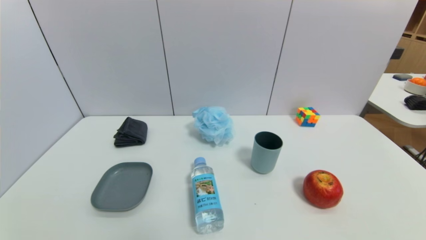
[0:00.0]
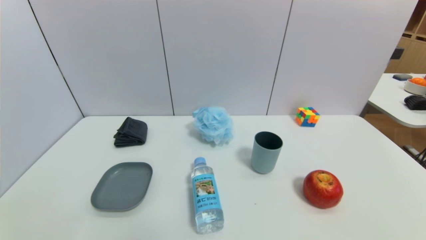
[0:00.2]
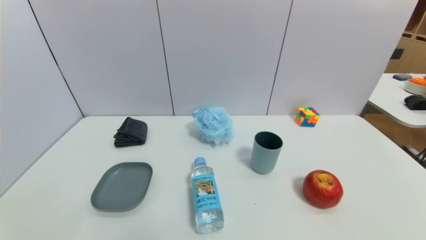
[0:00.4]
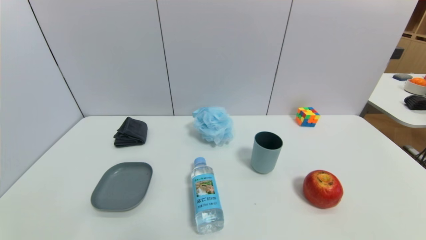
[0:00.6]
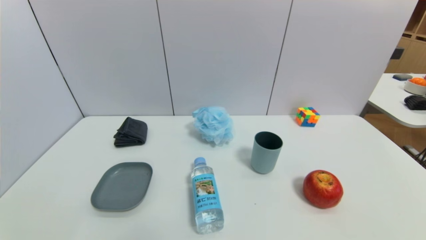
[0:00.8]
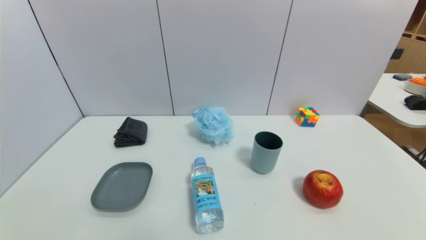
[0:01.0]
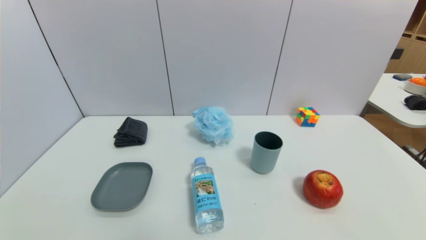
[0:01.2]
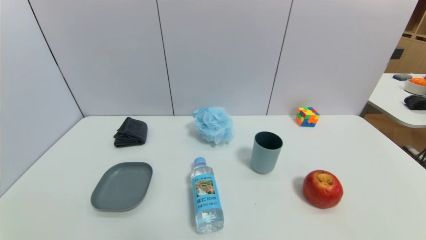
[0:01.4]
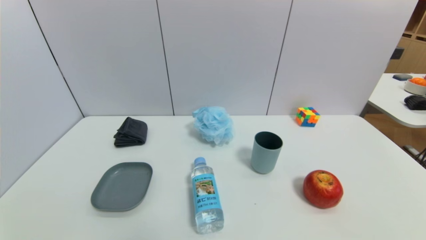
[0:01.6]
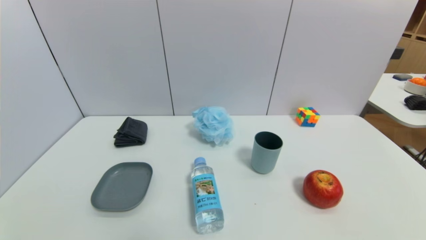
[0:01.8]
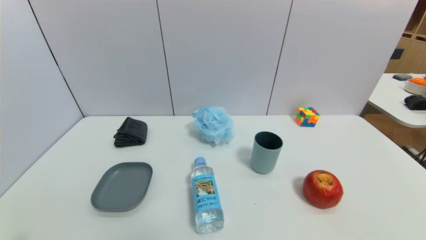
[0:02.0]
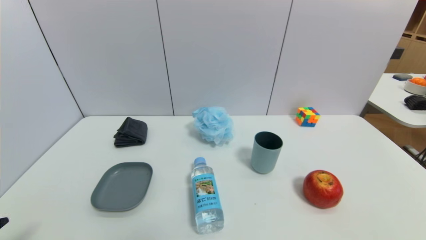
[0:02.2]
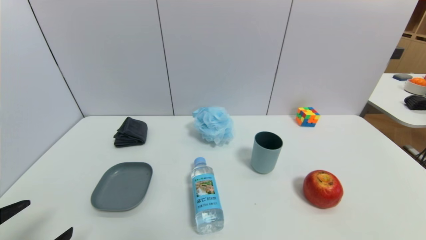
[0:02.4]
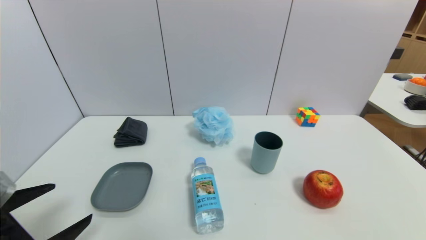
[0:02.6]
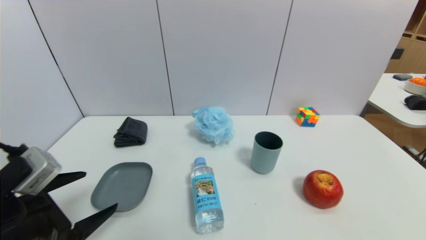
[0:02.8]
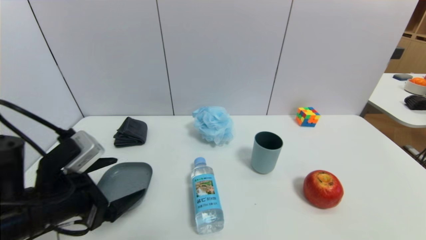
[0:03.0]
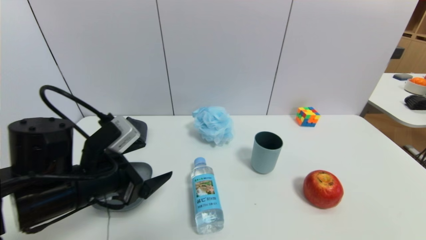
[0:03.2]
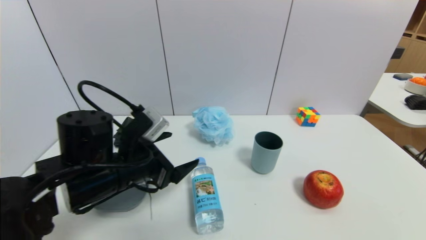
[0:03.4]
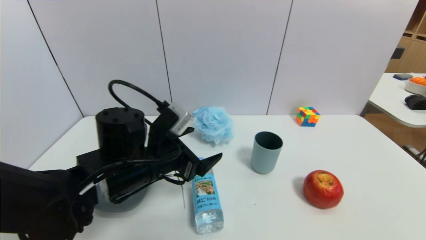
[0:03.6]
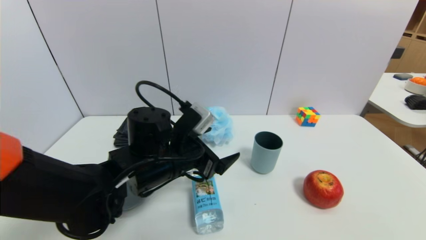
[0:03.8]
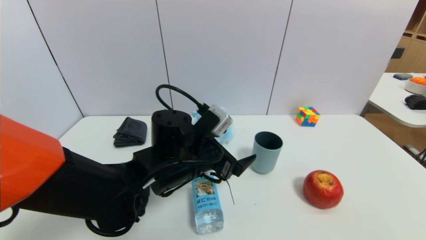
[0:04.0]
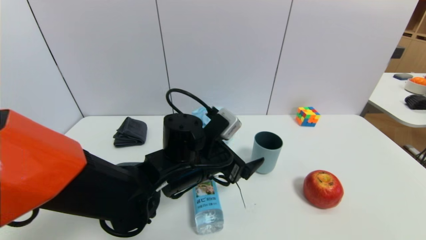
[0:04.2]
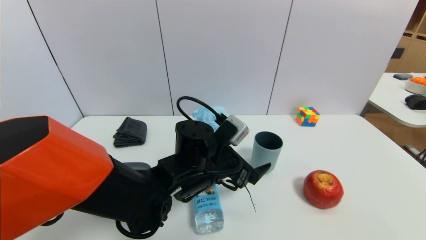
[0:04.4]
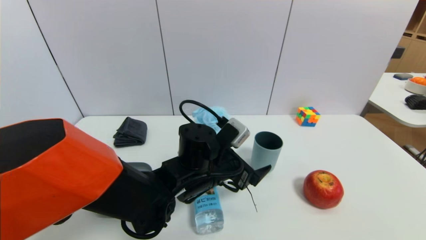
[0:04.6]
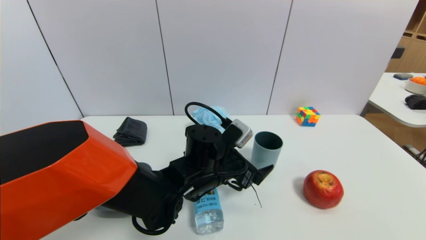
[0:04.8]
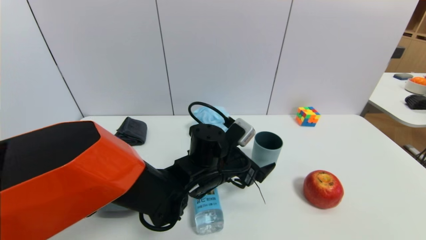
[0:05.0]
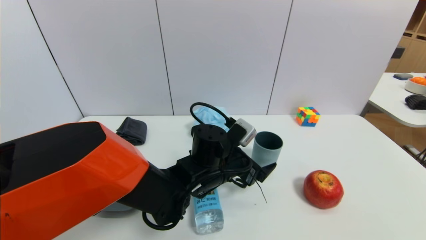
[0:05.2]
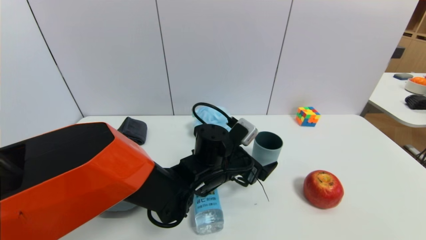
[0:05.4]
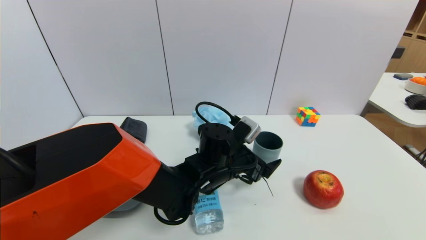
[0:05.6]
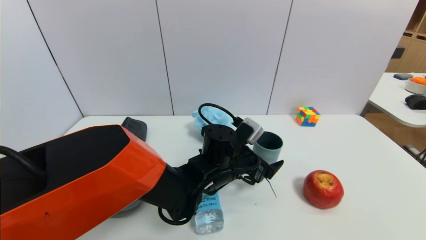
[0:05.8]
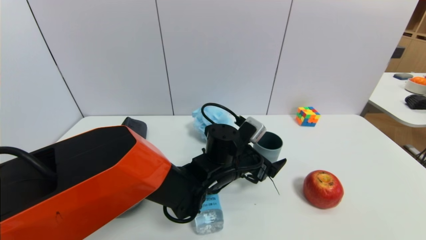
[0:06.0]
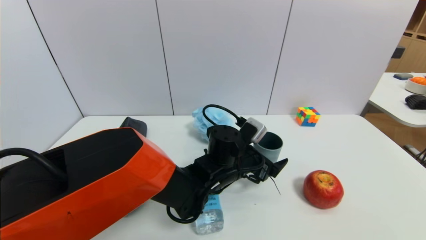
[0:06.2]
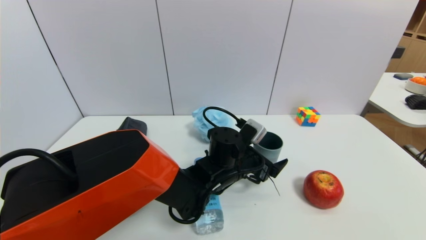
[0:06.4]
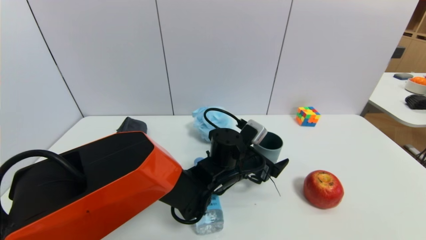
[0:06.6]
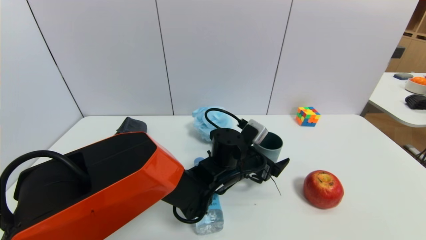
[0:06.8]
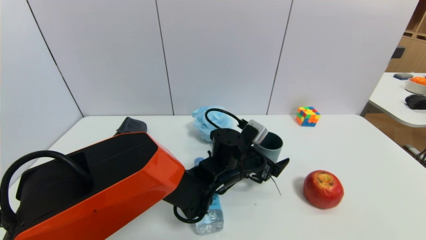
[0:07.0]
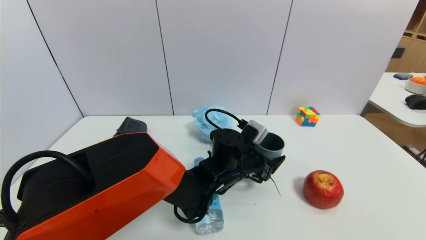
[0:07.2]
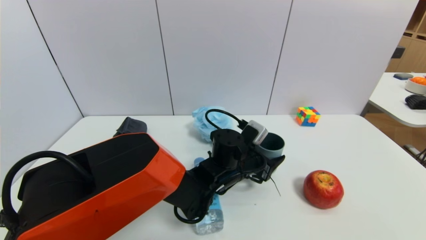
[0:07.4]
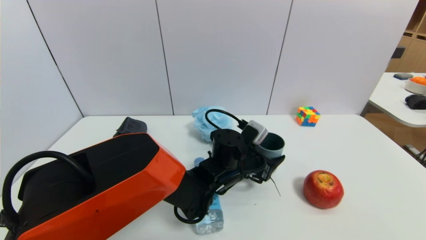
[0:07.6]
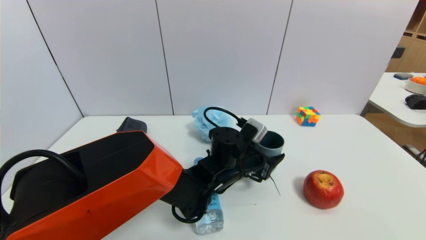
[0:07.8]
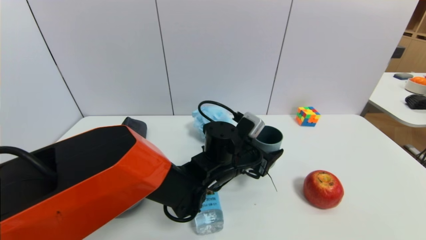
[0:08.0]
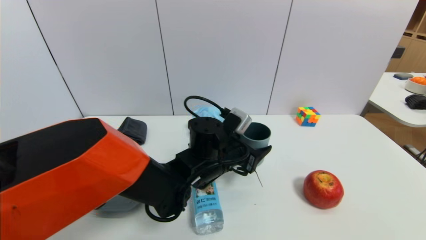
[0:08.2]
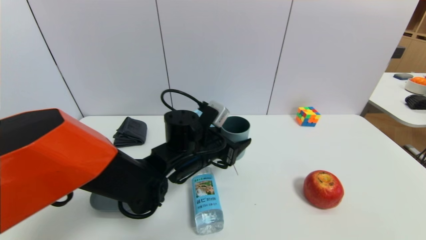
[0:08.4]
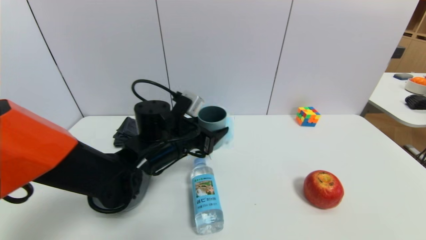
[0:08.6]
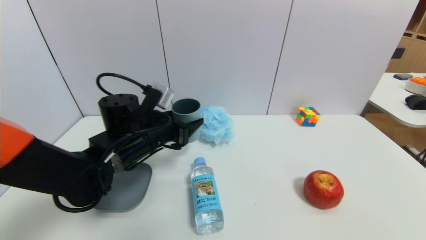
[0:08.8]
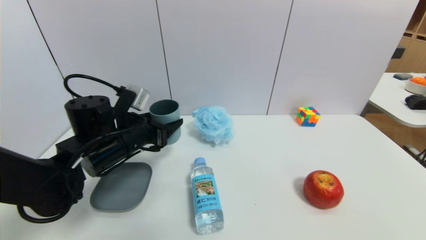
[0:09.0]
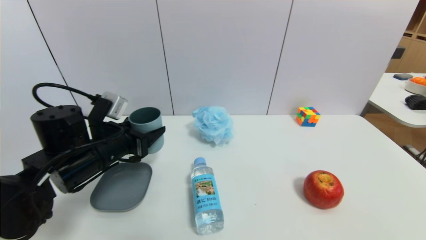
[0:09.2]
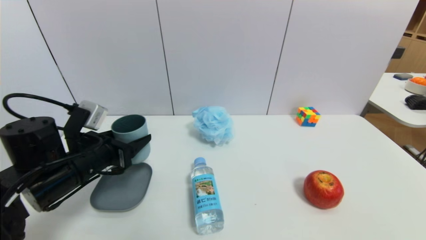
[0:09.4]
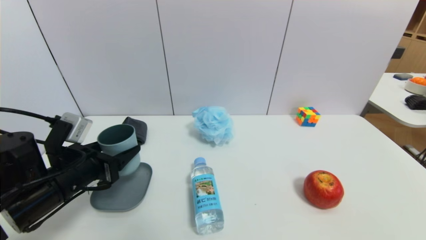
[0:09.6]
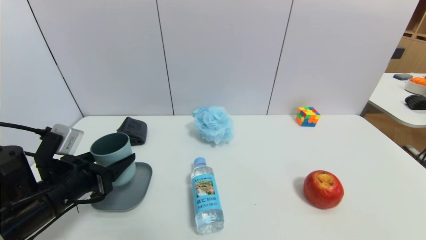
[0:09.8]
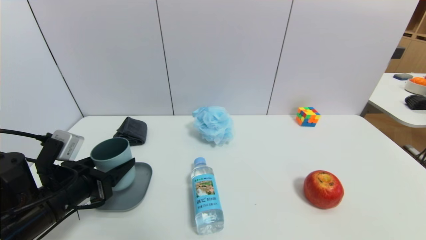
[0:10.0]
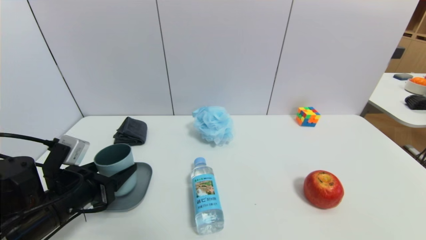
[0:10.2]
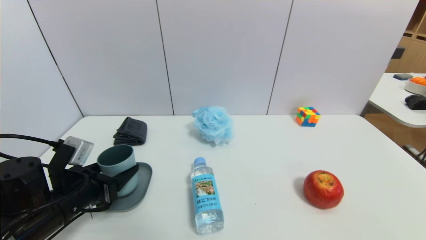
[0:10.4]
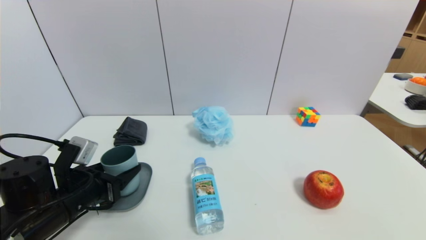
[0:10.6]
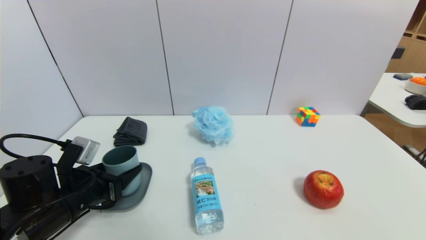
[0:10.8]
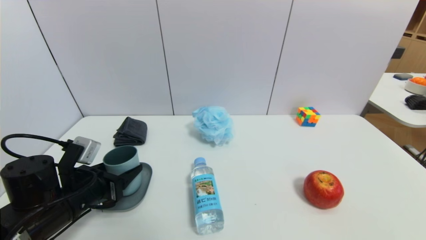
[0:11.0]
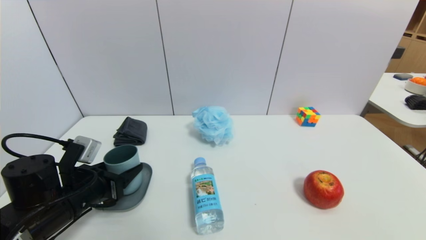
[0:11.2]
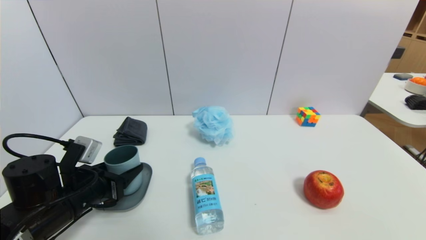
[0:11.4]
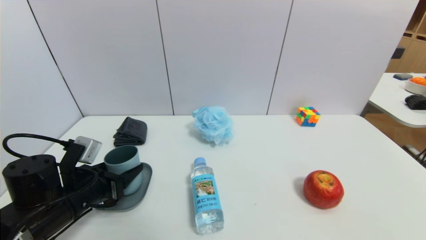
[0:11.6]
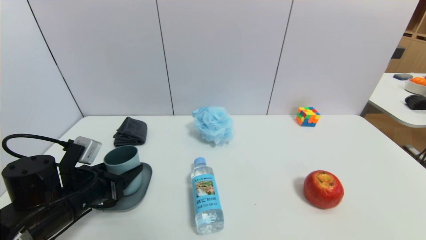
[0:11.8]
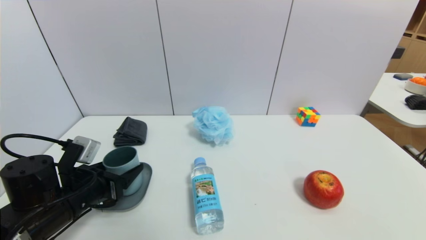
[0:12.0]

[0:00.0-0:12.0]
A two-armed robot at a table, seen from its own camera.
Task of the whole recording: use a gripper to pick the target object and place on the dish.
Step, 0:00.0 to 0:07.4: Grasp the blue cup with the left gripper.
0:00.0 to 0:01.6: Both grippers stay put.
0:01.6 to 0:03.0: The left gripper goes some 20 cm forward and upward.
0:03.0 to 0:04.4: The left gripper goes approximately 25 cm to the right and forward.
0:04.4 to 0:06.0: The left gripper heads to the right, covering approximately 5 cm.
0:06.0 to 0:07.6: The left gripper closes its fingers.
0:07.6 to 0:09.0: The left gripper heads to the left, covering roughly 25 cm.
0:09.0 to 0:10.4: The left gripper is displaced backward, to the left and downward by roughly 10 cm.
0:10.4 to 0:12.0: The left gripper opens.

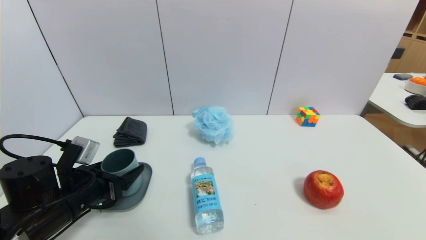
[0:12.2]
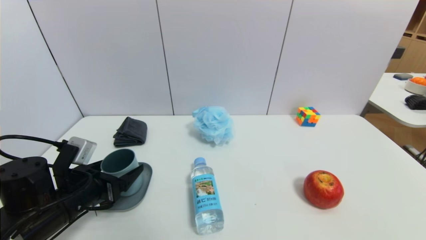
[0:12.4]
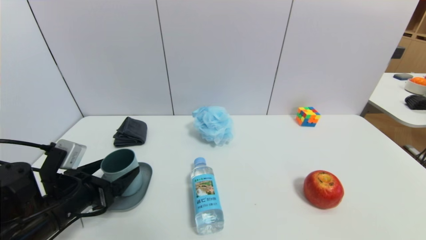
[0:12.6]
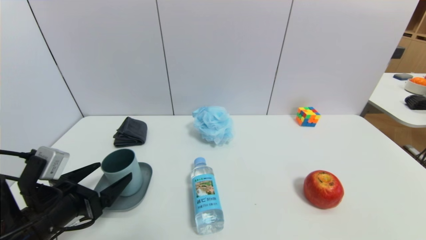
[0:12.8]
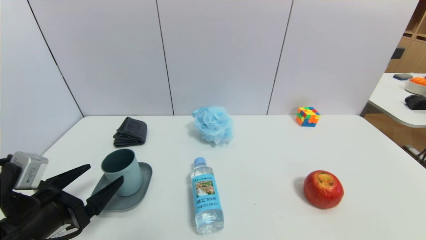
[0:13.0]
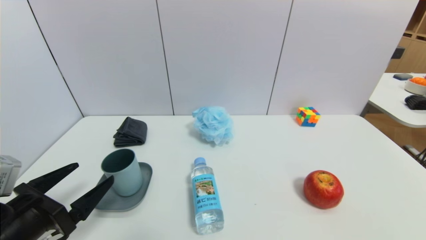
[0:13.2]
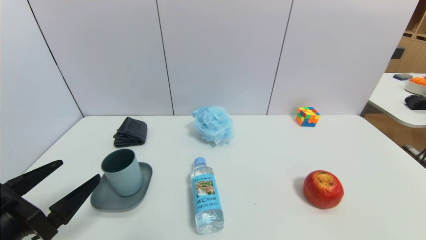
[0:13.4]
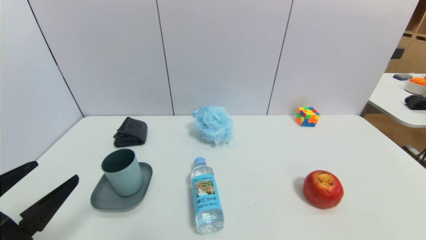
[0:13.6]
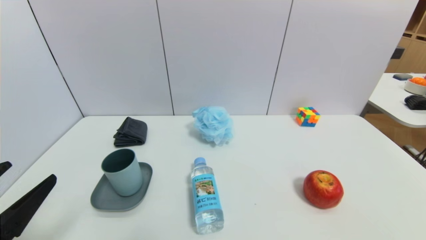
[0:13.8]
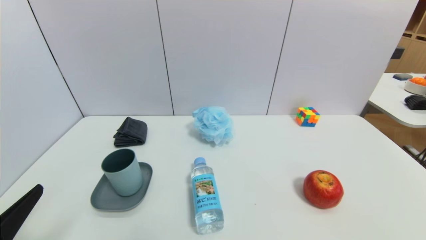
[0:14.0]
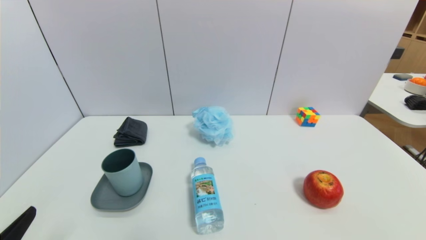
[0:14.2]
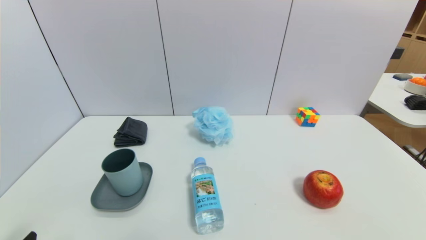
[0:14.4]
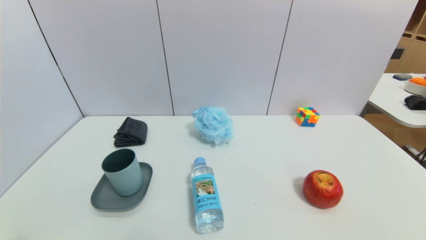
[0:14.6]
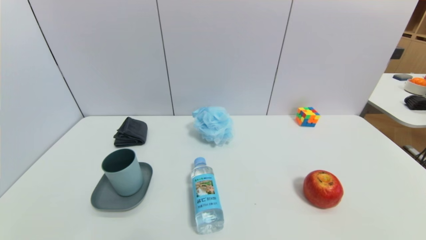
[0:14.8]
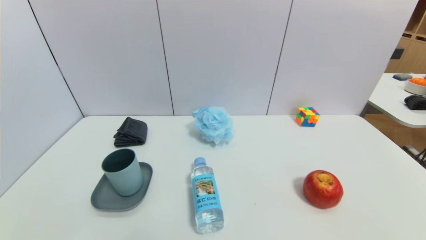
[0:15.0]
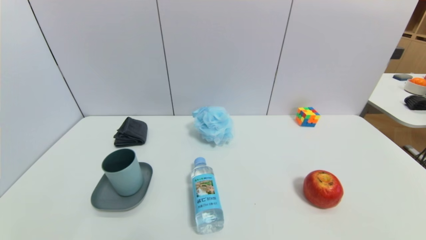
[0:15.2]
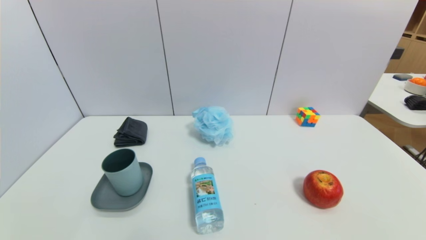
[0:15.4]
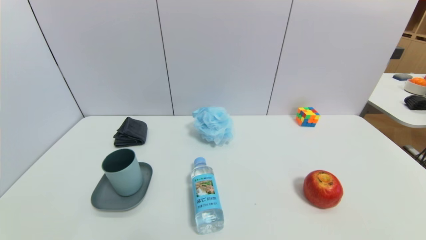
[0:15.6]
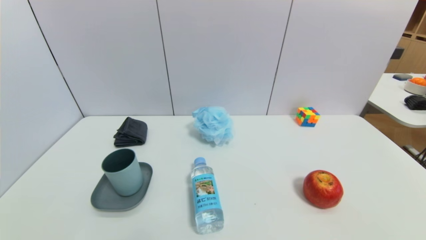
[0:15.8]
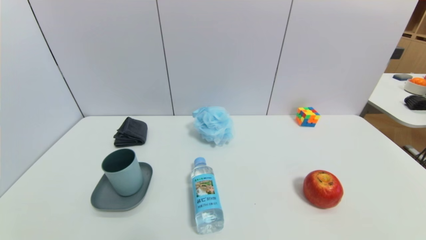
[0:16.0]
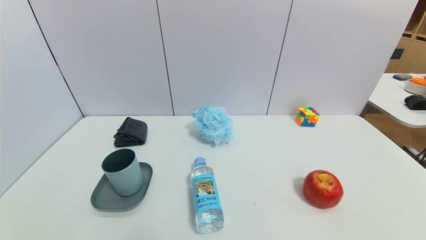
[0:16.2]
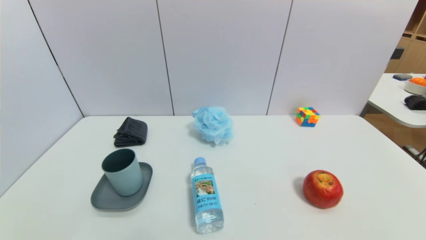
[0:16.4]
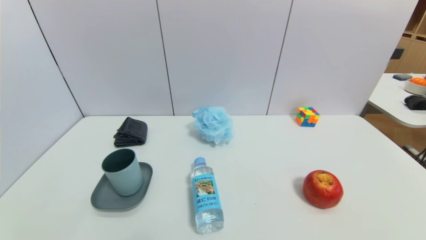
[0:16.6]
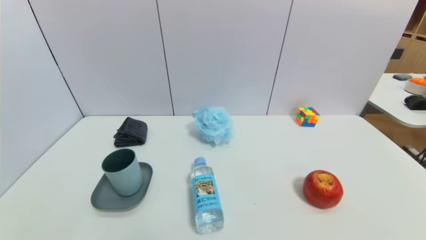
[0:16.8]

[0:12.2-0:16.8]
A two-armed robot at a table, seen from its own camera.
Task of the whole recording: use a gripper to pick the target object and place on the dish.
0:12.2 to 0:13.8: The left gripper goes approximately 15 cm backward and upward, and opens up.
0:13.8 to 0:15.2: The left gripper shifts about 15 cm downward and backward.
